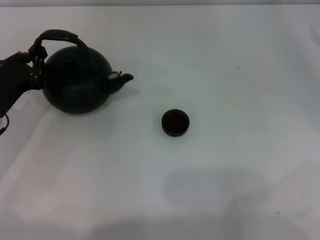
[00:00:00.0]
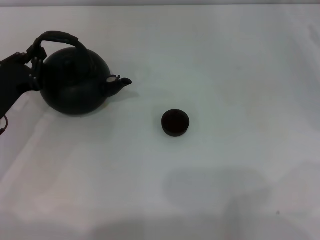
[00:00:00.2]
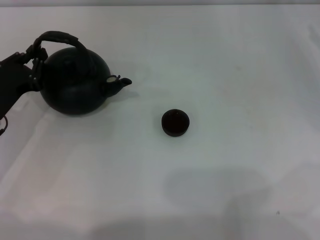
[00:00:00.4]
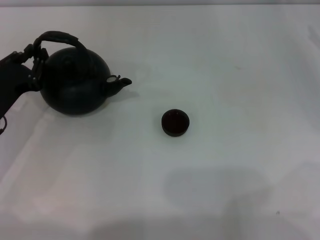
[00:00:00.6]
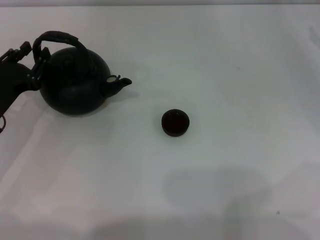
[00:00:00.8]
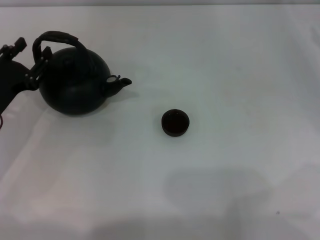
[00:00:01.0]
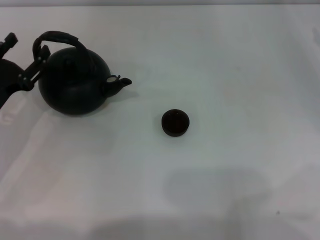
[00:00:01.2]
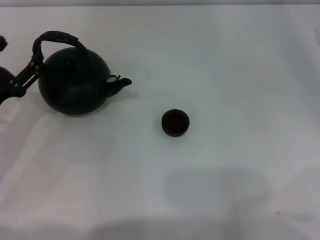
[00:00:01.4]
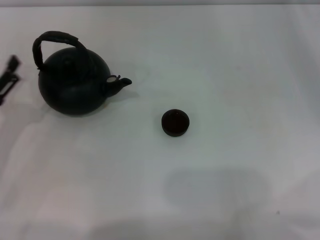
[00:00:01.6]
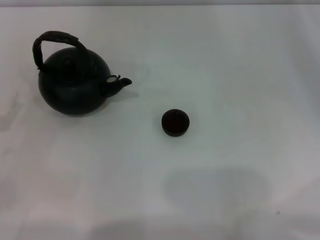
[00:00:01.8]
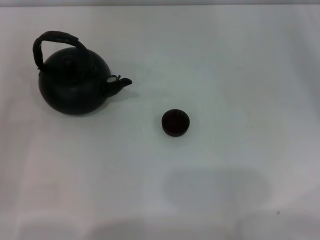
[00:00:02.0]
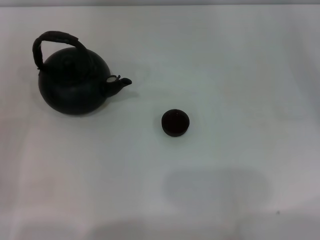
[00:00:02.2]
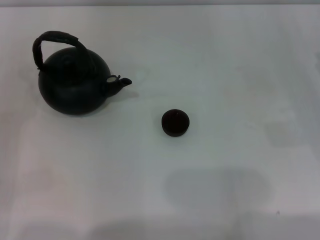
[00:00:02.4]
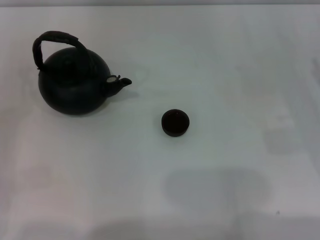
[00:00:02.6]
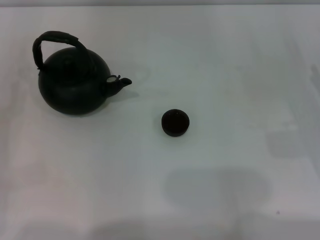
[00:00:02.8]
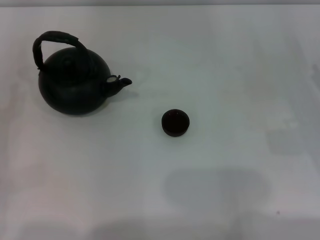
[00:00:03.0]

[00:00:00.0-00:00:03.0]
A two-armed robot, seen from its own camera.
Task of the whole recording: Grasp the handle of the teapot with one hand and pour tea into the teacup.
00:00:00.0 to 00:00:01.6: The left gripper travels backward by approximately 5 cm, and opens.
00:00:01.6 to 00:00:03.0: The left gripper moves to the left, roughly 5 cm. The right gripper goes some 10 cm backward, downward and to the left.
